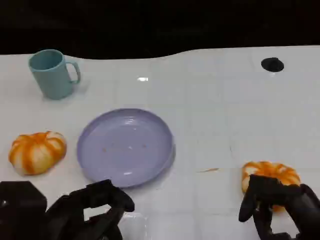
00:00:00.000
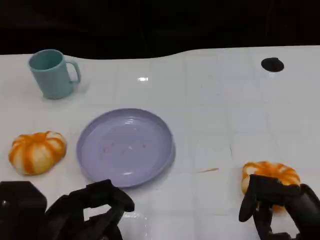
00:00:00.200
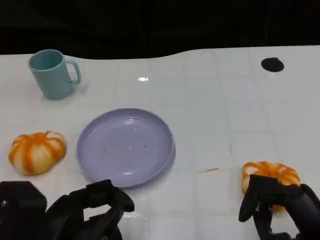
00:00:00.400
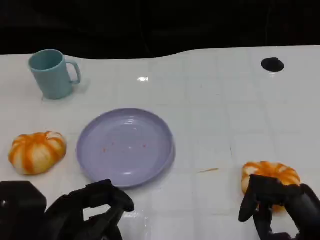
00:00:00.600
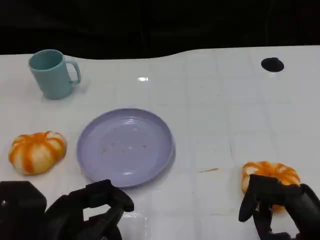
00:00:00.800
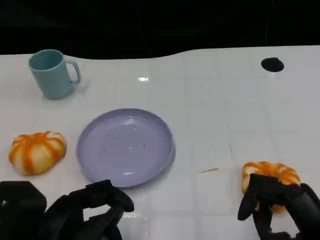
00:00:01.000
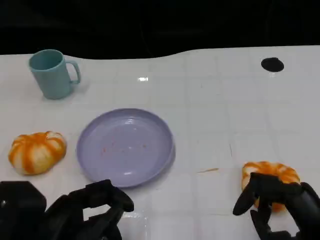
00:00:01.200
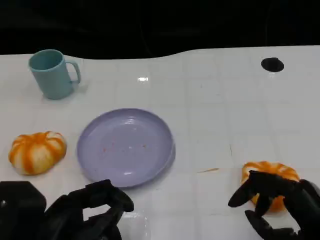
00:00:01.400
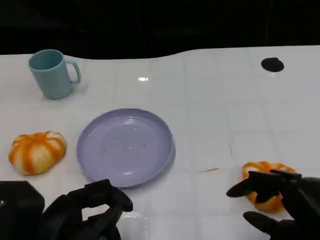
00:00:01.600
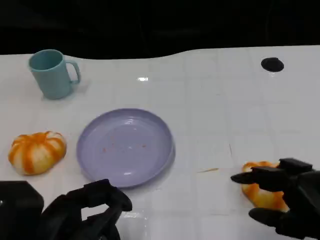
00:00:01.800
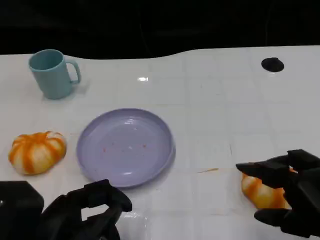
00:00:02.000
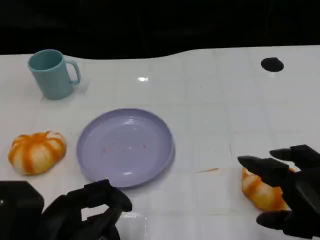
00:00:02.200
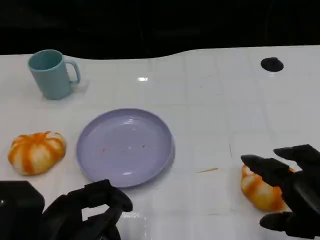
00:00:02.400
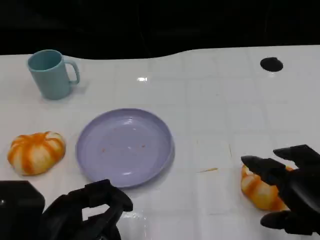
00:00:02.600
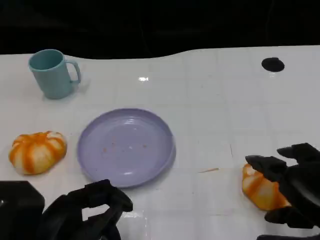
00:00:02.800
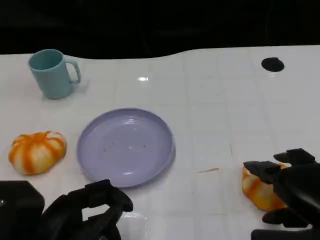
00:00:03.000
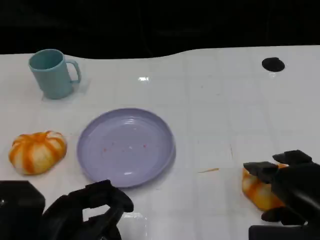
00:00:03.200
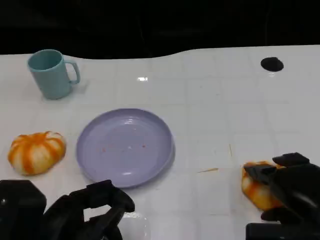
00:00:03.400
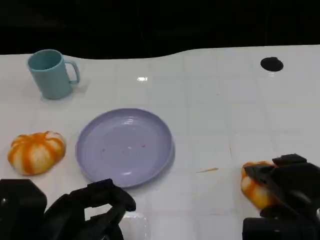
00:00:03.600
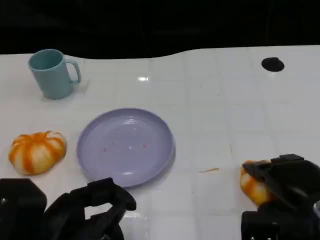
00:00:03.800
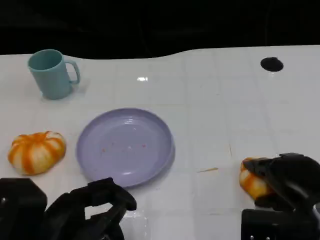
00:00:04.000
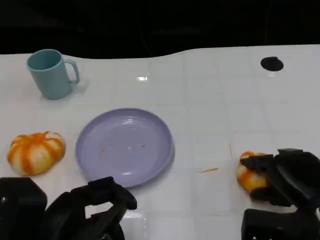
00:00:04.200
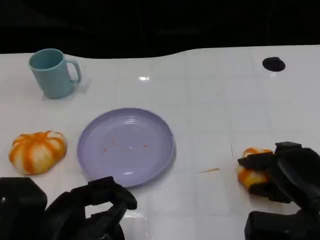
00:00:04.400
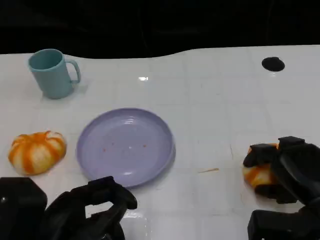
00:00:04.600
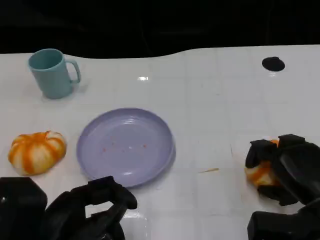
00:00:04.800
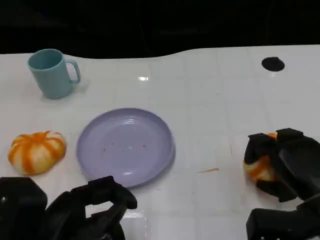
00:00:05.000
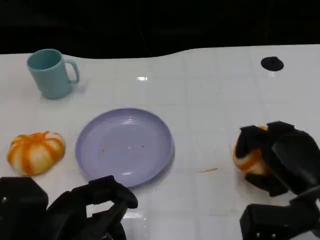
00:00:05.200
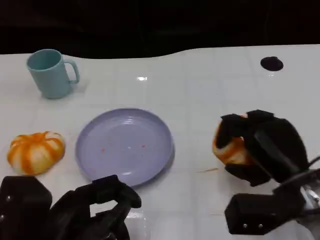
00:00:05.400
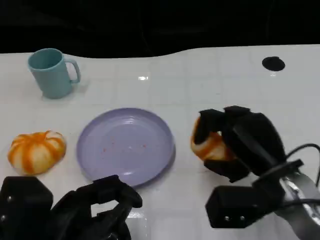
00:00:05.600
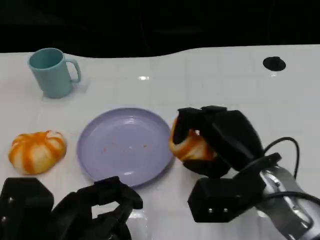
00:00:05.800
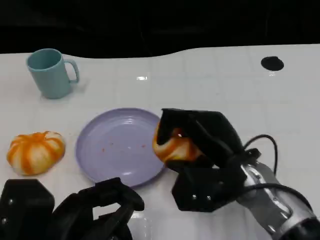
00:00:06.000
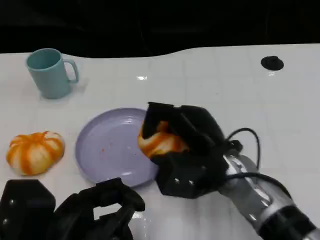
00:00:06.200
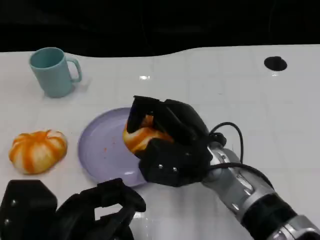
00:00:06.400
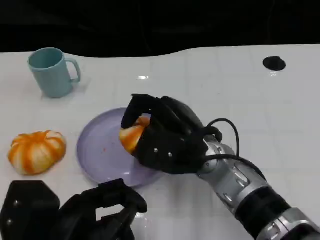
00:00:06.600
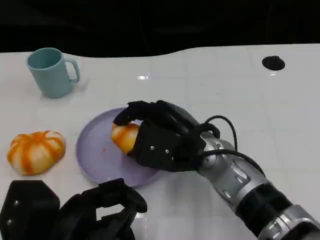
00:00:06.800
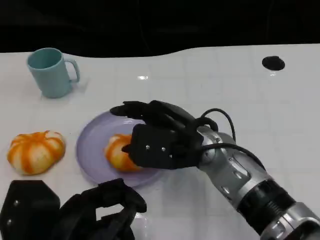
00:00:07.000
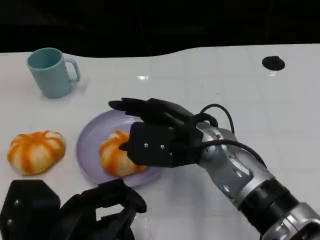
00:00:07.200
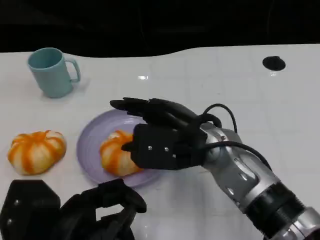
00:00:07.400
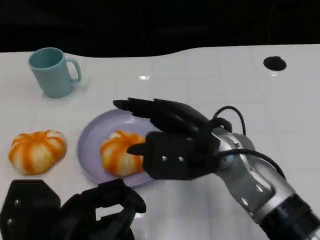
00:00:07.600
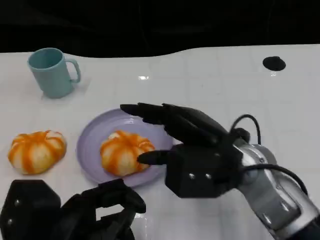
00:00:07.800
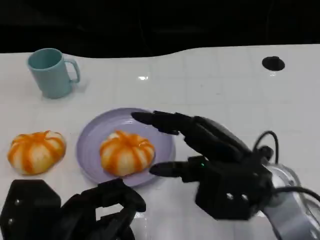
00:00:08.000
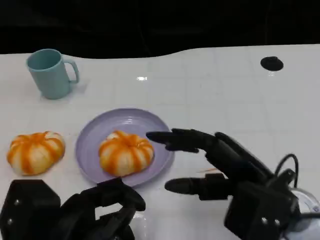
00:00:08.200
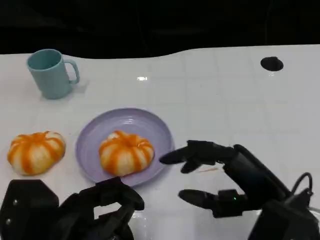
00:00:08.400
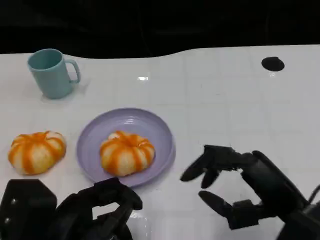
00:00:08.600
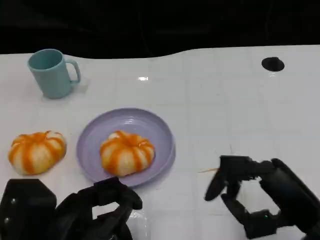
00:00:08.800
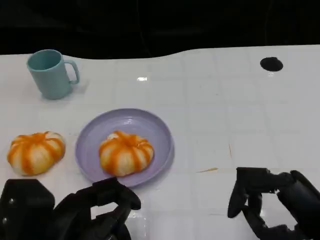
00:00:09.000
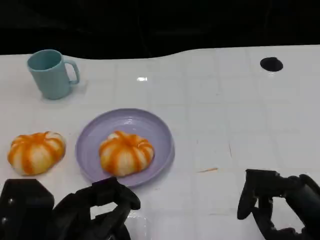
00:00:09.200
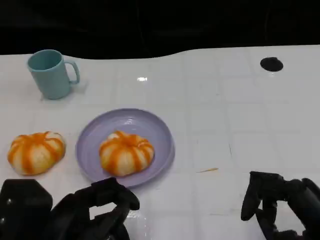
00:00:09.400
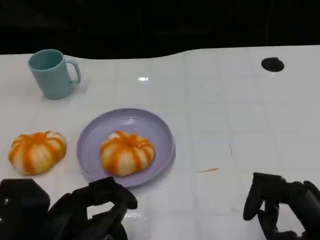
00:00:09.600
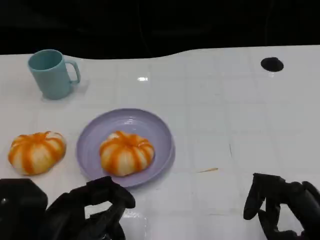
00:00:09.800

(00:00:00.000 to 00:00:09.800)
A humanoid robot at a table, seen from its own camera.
Task of the whole recording: Grasp the bread from the table and place it into the plate.
00:00:00.000 - 00:00:01.400: There are only small adjustments of the hands.
00:00:02.800 - 00:00:04.200: The right hand heads downward, covering approximately 5 cm.
00:00:04.200 - 00:00:05.600: The right hand goes about 5 cm to the left.
00:00:05.600 - 00:00:07.000: The right hand travels to the left by roughly 10 cm.
00:00:07.000 - 00:00:08.400: The right hand travels to the right and backward by about 15 cm.
00:00:08.400 - 00:00:09.800: The right hand shifts about 5 cm to the right.

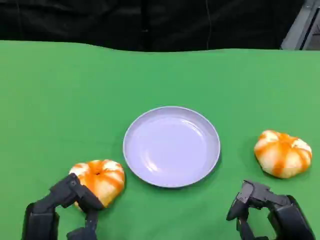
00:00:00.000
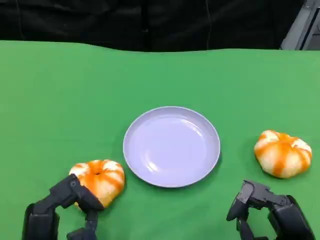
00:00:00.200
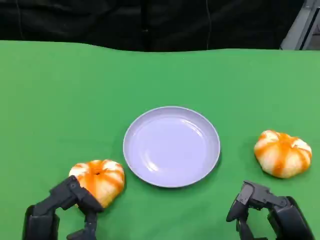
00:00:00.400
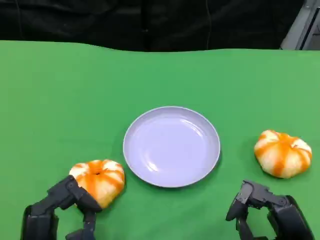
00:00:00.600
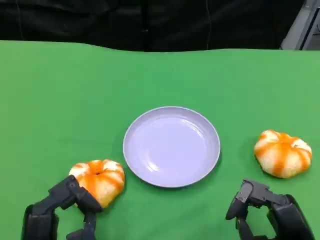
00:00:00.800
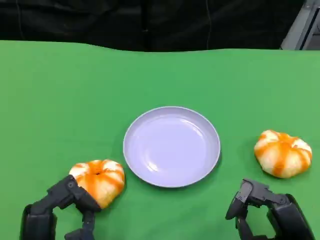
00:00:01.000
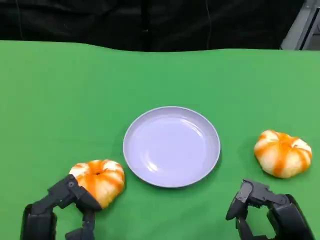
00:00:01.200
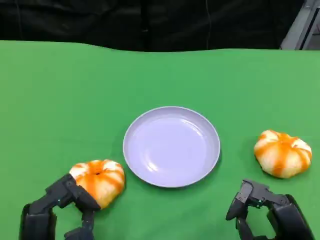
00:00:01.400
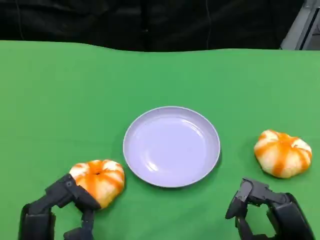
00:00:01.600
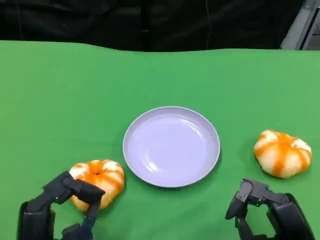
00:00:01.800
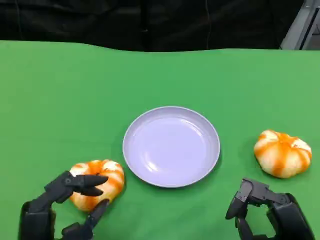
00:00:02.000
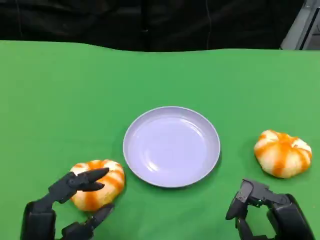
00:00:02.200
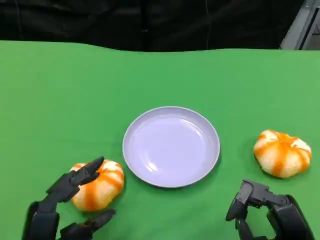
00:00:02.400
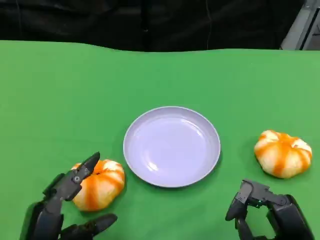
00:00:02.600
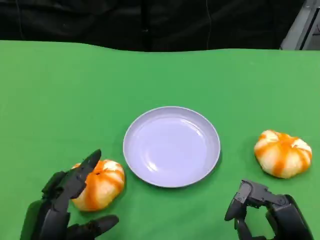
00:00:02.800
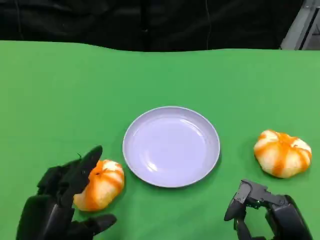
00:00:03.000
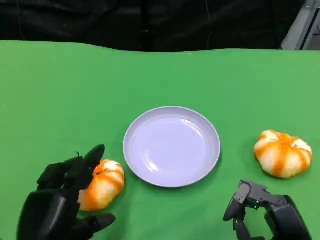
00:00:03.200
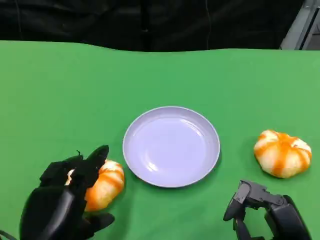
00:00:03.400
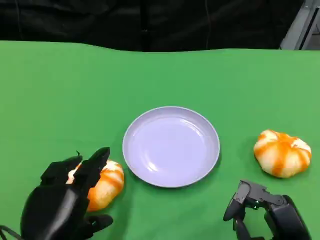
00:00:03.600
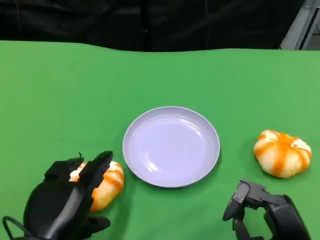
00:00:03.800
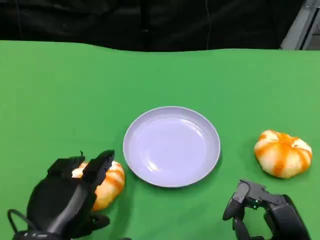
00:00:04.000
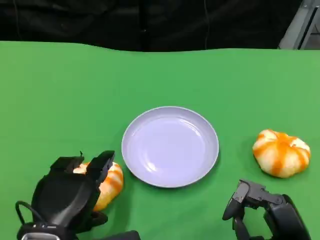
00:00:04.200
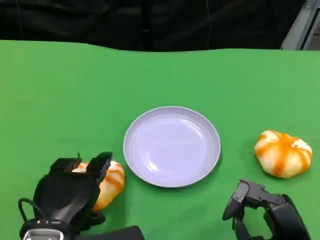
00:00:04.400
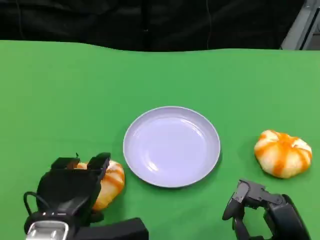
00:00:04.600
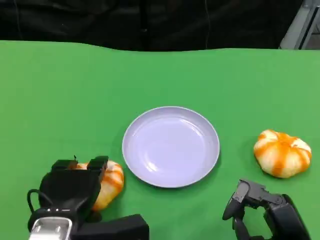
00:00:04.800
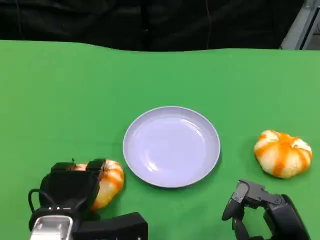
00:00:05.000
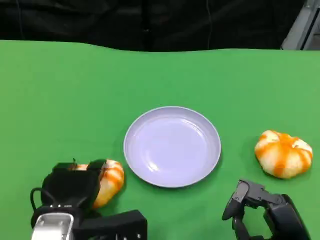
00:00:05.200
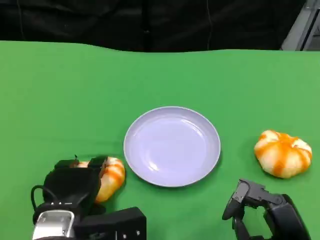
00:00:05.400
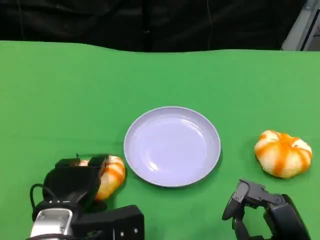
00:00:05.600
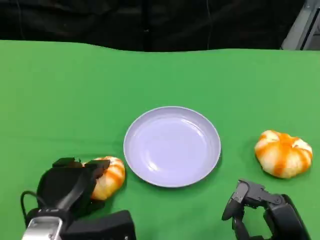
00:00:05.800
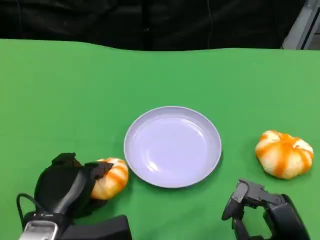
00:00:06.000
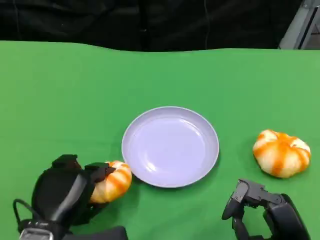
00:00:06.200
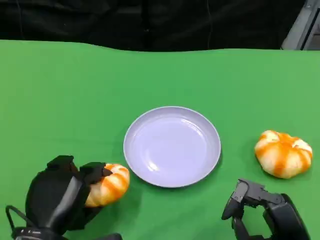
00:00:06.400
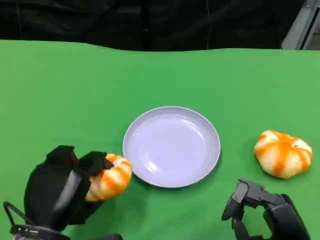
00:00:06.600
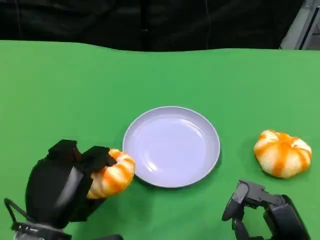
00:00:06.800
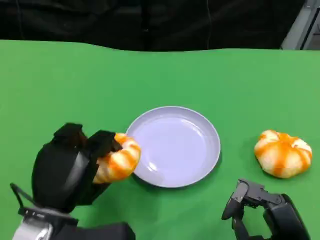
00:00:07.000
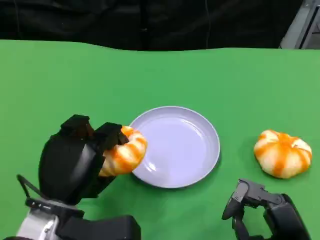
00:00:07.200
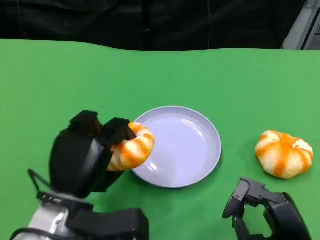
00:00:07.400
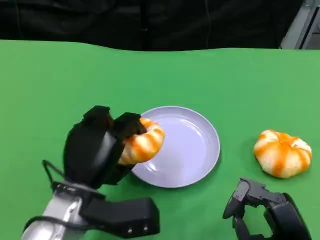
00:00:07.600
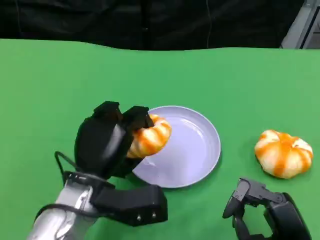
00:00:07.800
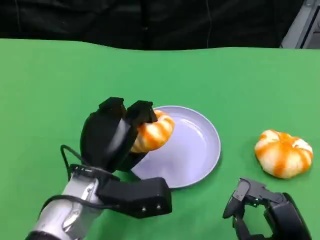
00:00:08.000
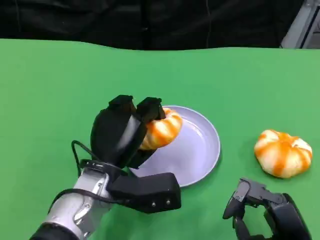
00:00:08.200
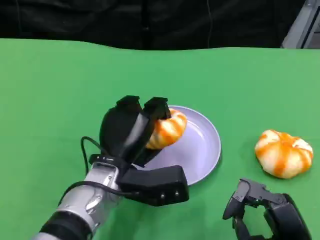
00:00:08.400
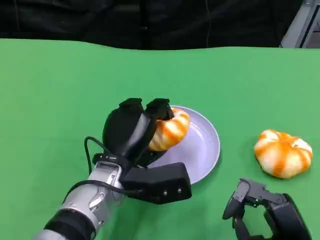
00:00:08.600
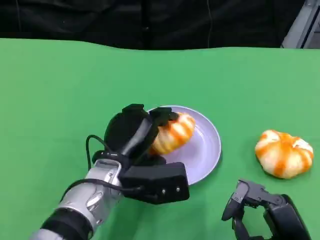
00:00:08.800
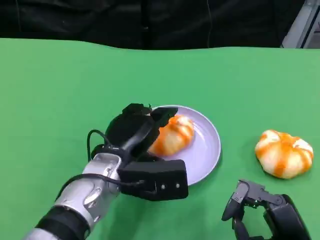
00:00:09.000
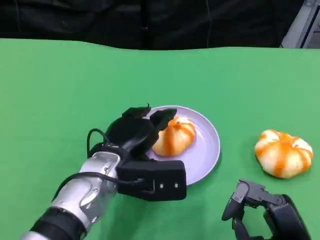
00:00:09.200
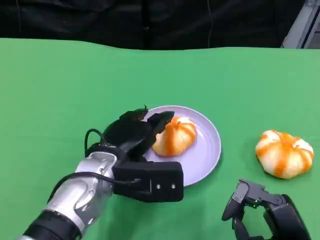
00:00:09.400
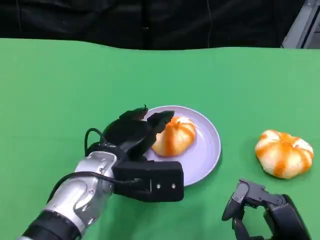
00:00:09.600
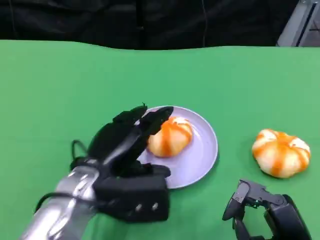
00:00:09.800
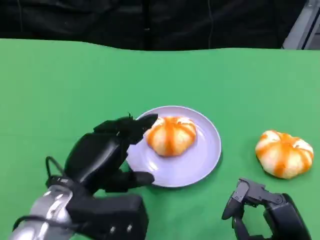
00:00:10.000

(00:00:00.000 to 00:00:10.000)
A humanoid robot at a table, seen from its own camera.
Task of the whole recording: Grasp the bread from the table and place it into the plate.
00:00:00.000 - 00:00:01.400: Neither hand changes place.
00:00:02.800 - 00:00:04.200: The left hand moves approximately 5 cm.
00:00:04.200 - 00:00:05.800: The left hand shifts by about 5 cm.
00:00:07.200 - 00:00:08.600: The left hand heads to the right and forward, covering roughly 10 cm.
00:00:08.600 - 00:00:10.000: The left hand goes about 10 cm to the left and backward.

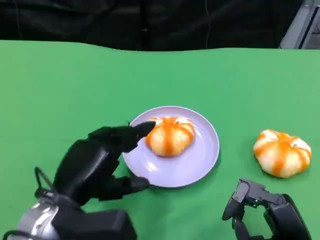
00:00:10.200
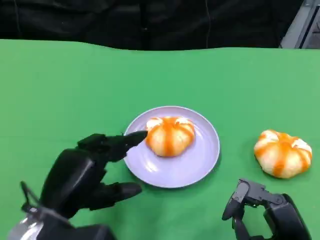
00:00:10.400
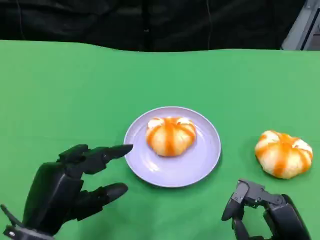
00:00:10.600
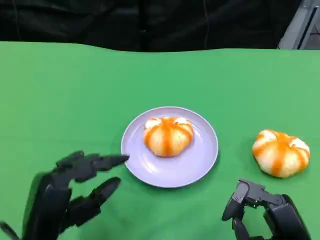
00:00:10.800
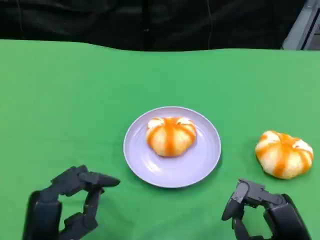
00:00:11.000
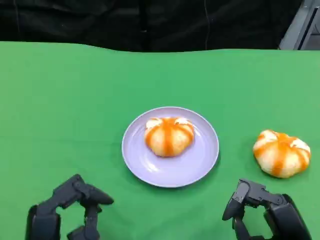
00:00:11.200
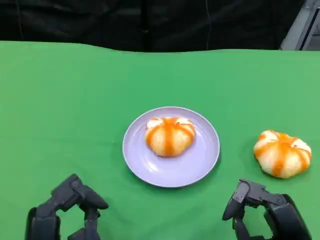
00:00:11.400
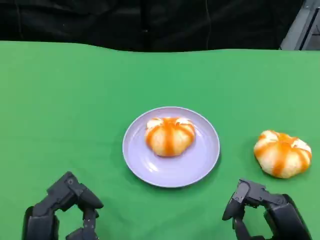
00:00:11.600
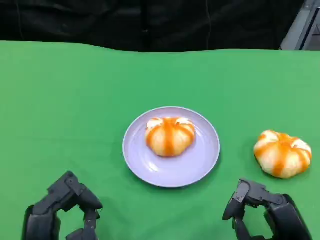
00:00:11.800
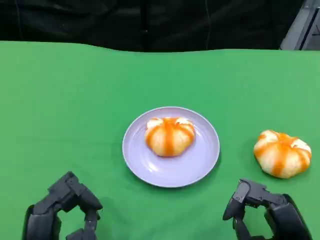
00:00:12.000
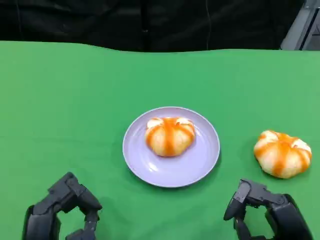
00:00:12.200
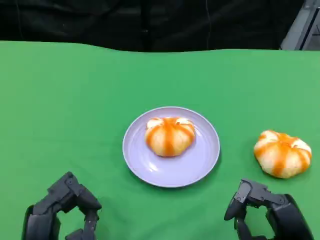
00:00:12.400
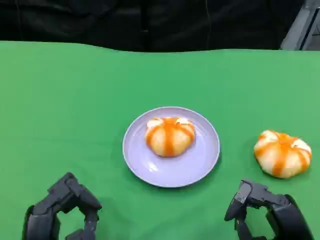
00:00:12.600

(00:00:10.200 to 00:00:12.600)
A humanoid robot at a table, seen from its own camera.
Task of the whole recording: Grasp the bread from the table and place it into the plate.
00:00:10.200 - 00:00:11.400: The left hand shifts some 10 cm backward.
00:00:11.400 - 00:00:12.600: The hands move only a little.
